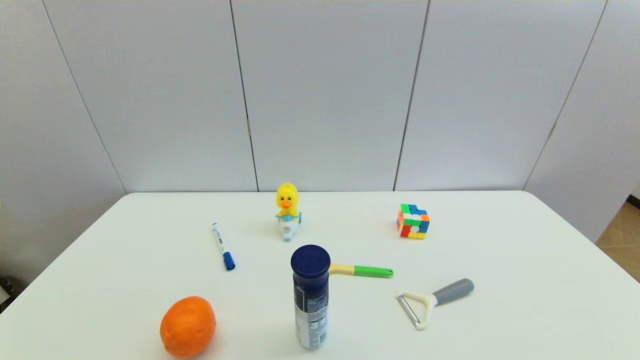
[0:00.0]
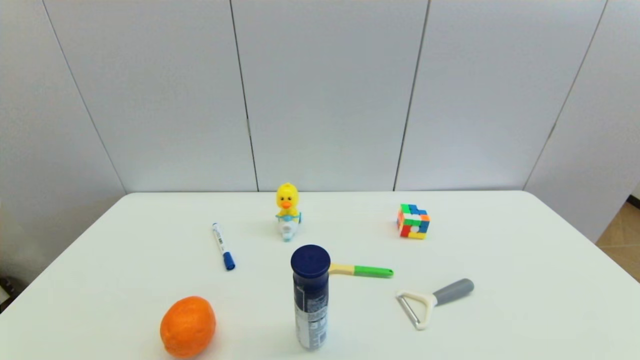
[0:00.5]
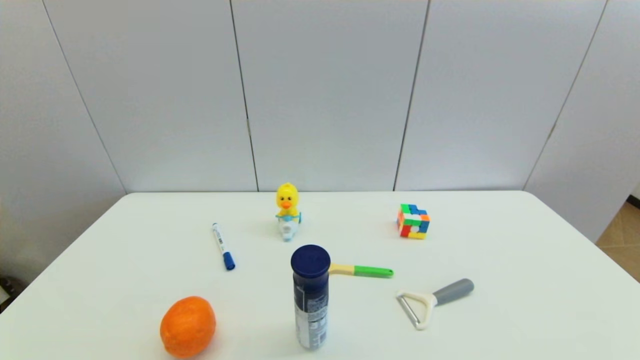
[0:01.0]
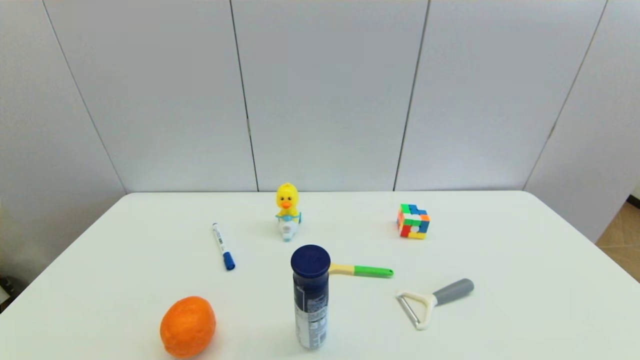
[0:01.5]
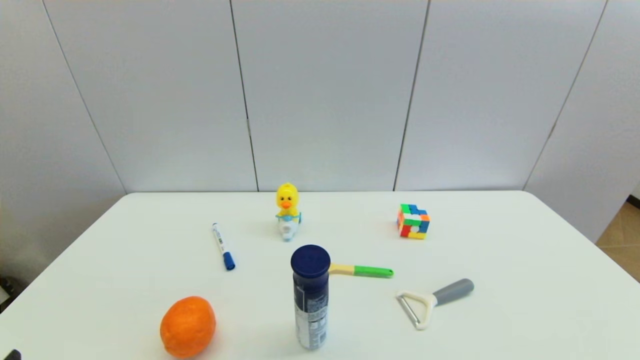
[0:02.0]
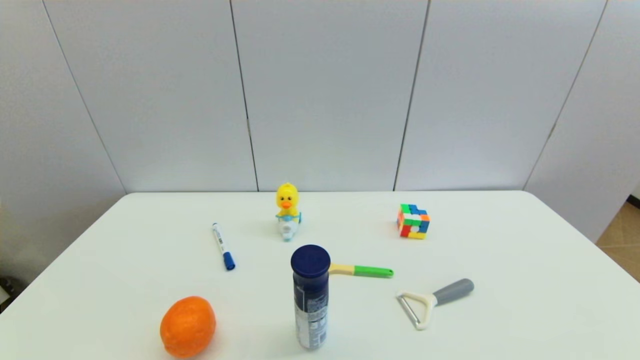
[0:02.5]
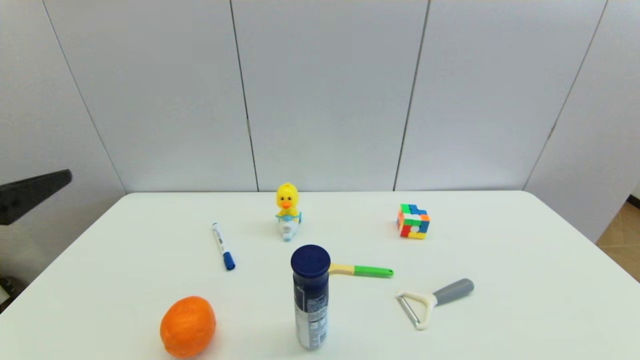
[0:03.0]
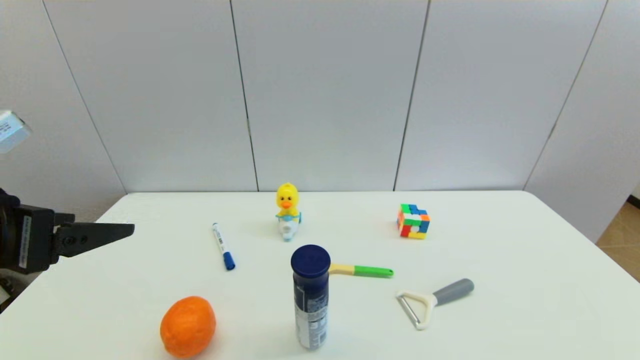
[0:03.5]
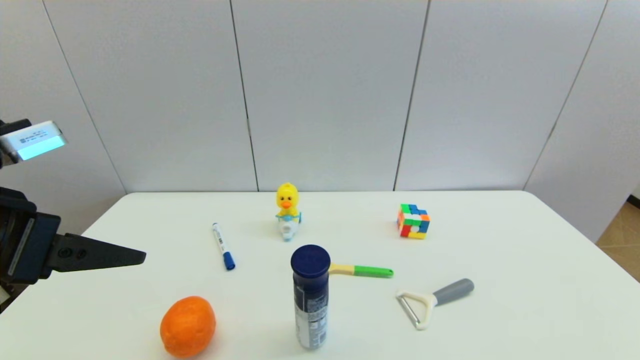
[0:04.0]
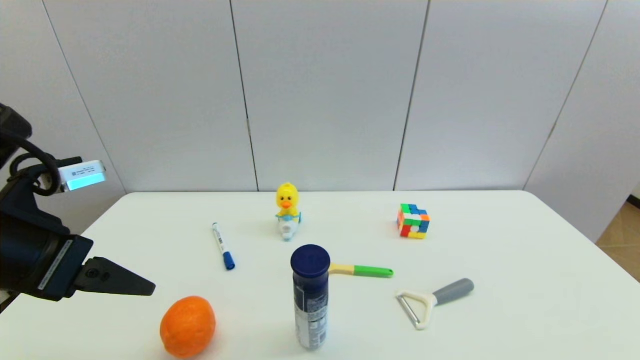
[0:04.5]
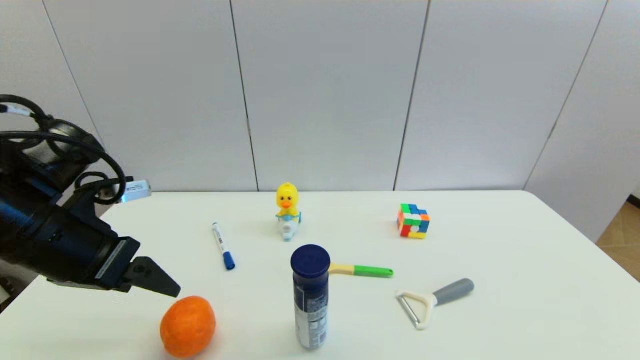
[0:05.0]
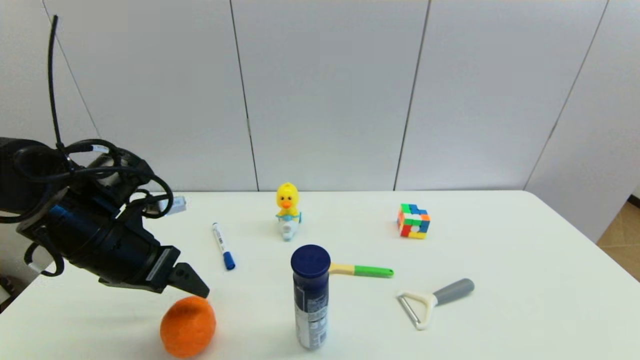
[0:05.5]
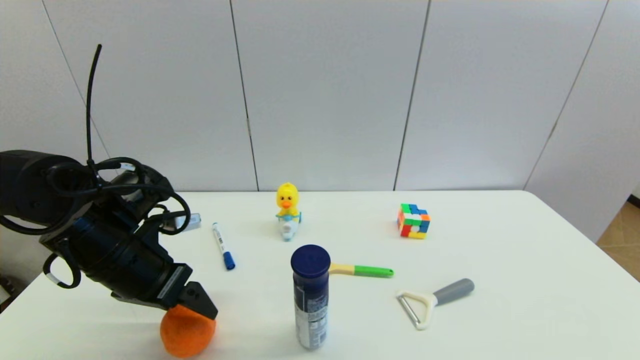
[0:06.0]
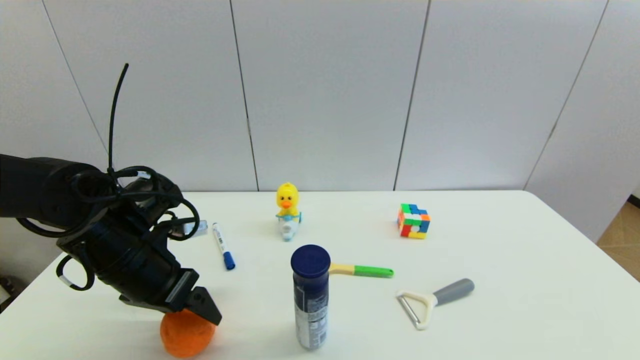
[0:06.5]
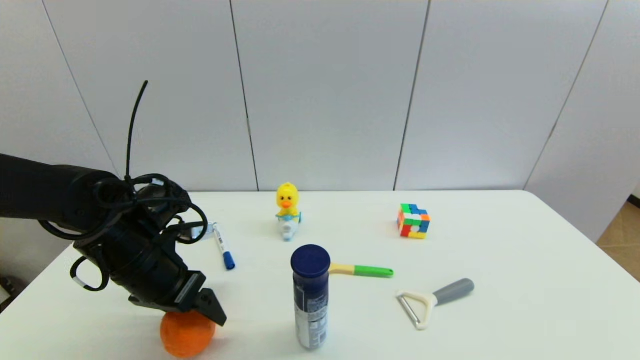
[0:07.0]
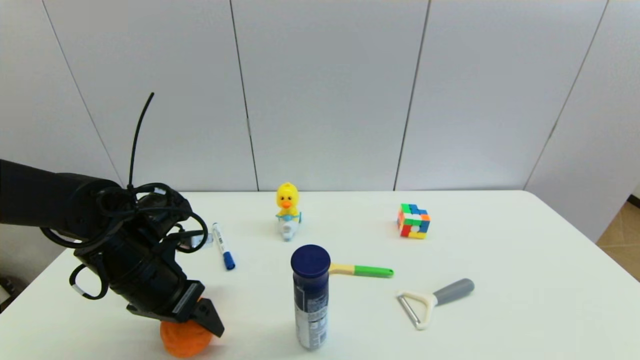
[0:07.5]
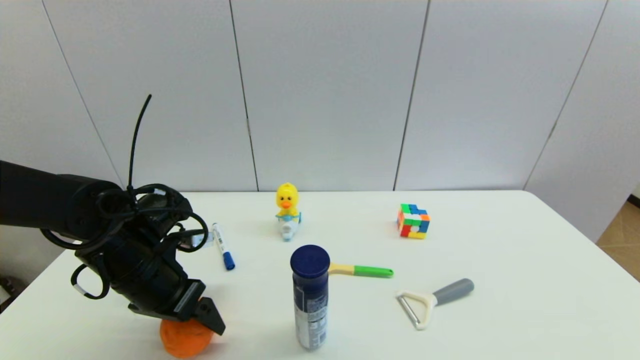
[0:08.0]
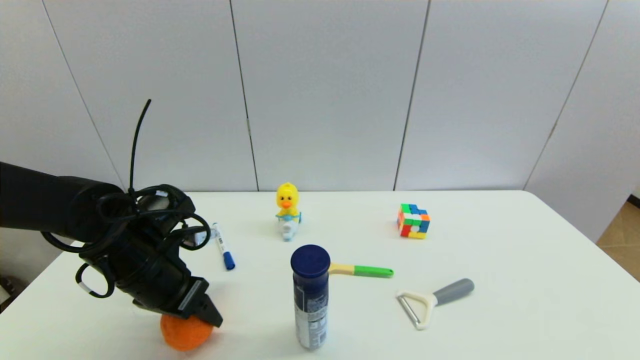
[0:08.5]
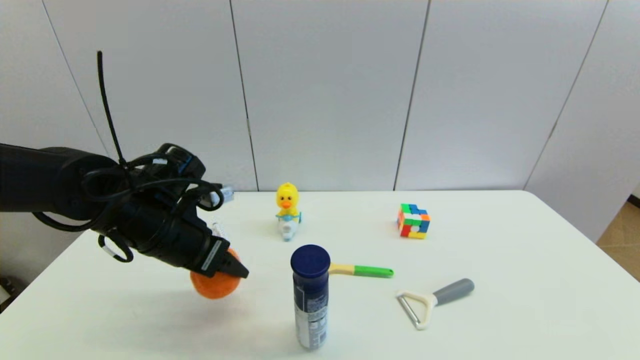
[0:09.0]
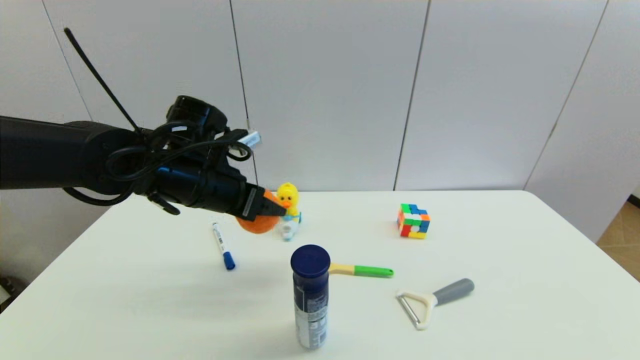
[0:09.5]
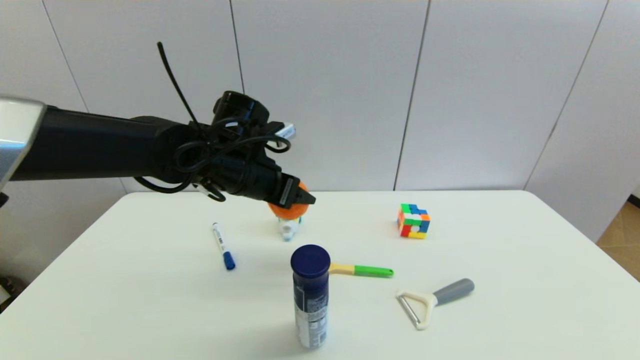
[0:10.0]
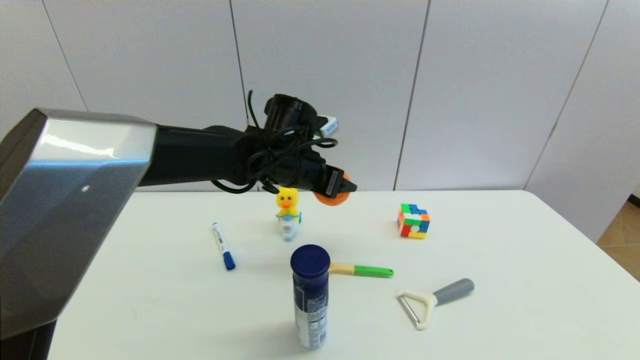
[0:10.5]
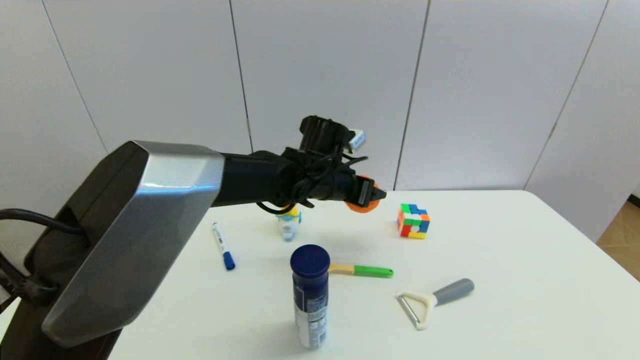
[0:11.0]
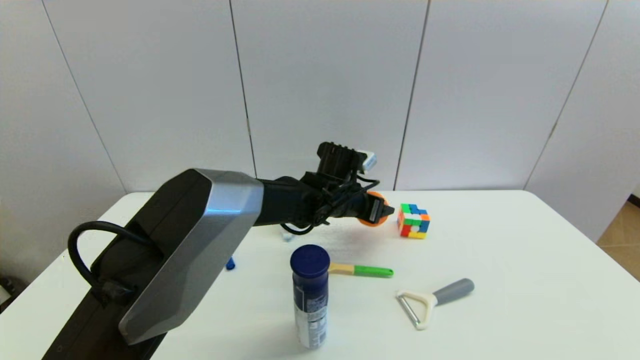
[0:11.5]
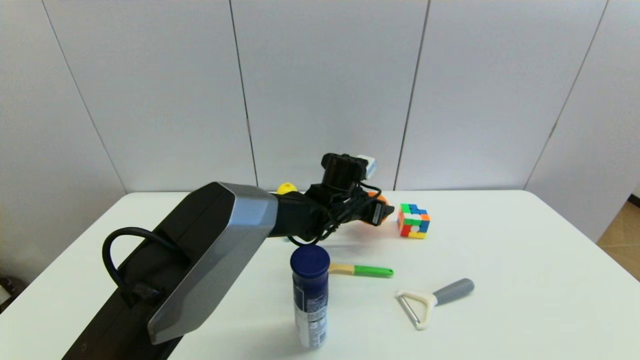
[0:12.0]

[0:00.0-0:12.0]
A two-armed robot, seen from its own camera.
Step, 2.0 to 8.5 s: Grasp the orange with left gripper.
2.0 to 4.0 s: The left gripper shifts approximately 20 cm forward and upward.
4.0 to 6.0 s: The left gripper moves downward and forward, some 15 cm.
6.0 to 8.0 s: The grippers stay close to where they were, moving slightly.
8.0 to 10.0 s: The left gripper is displaced to the right, upward and forward by about 15 cm, and closes.
10.0 to 12.0 s: The left gripper moves to the right, downward and forward, approximately 20 cm.

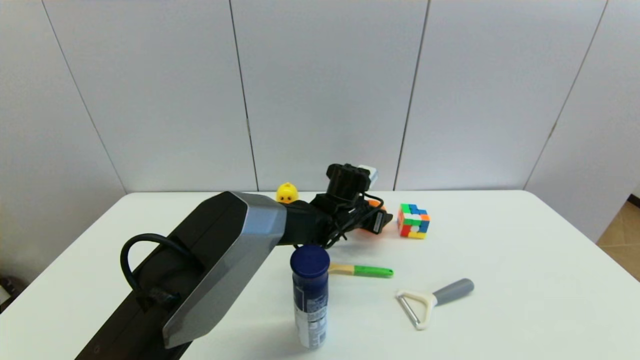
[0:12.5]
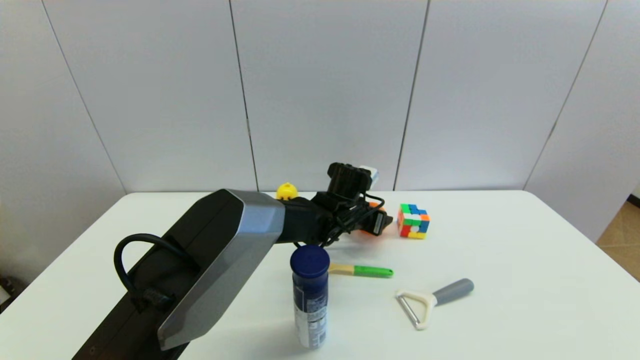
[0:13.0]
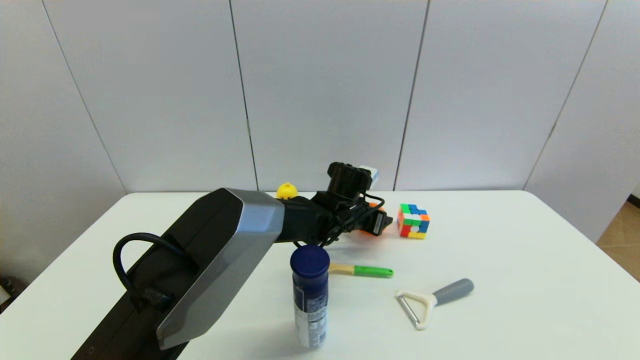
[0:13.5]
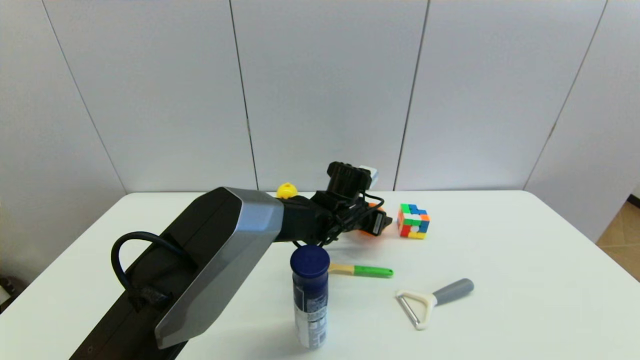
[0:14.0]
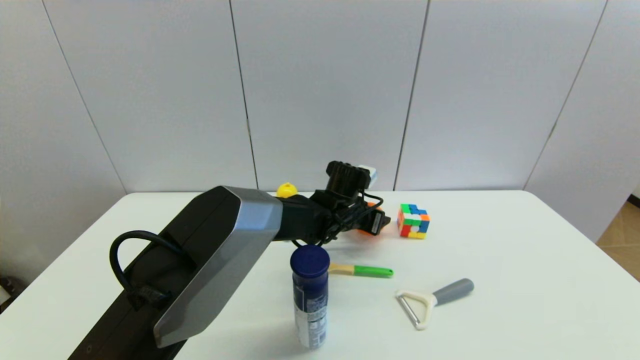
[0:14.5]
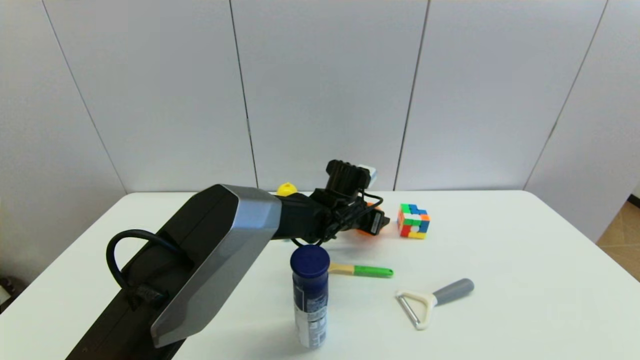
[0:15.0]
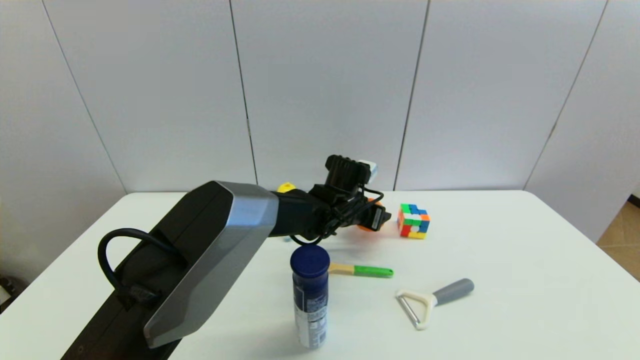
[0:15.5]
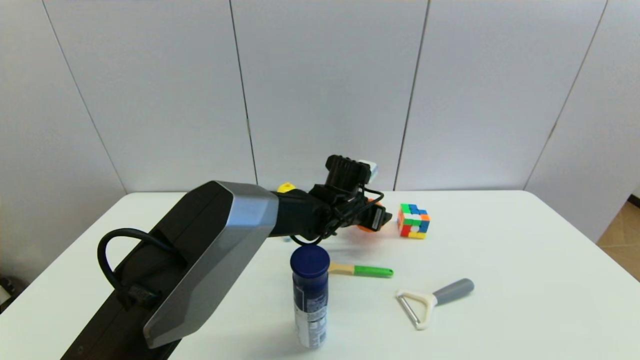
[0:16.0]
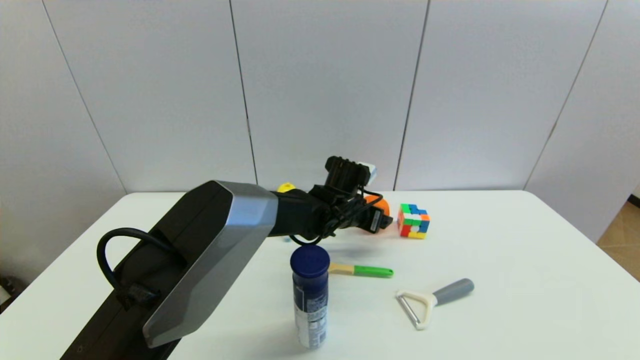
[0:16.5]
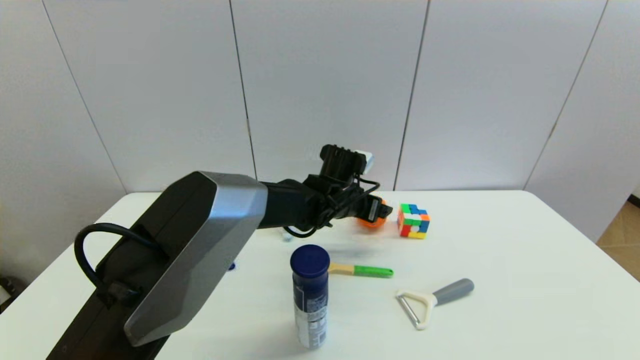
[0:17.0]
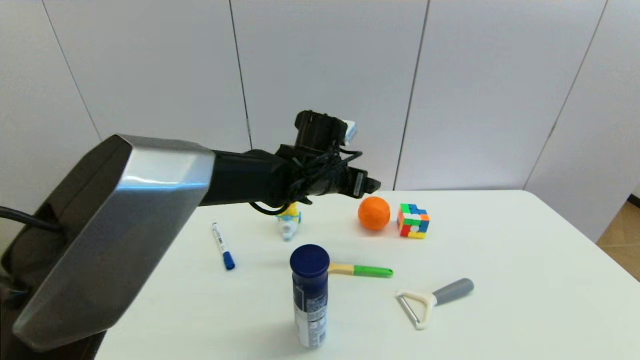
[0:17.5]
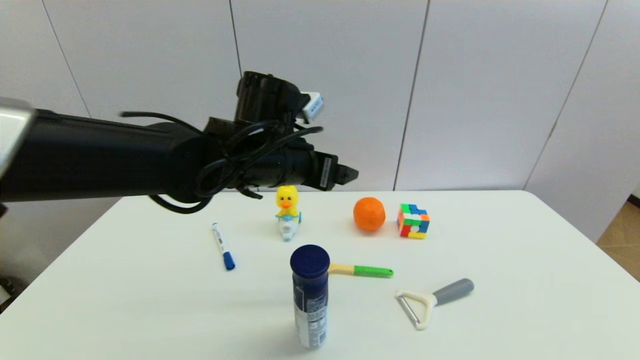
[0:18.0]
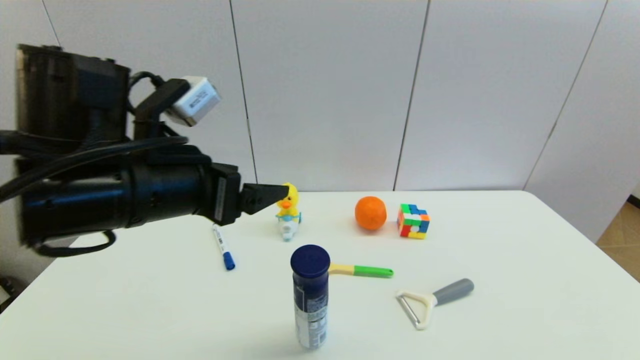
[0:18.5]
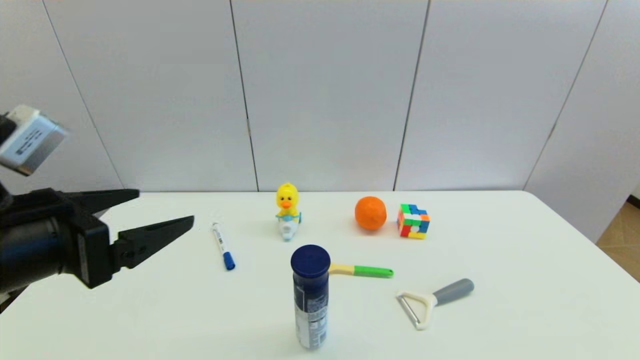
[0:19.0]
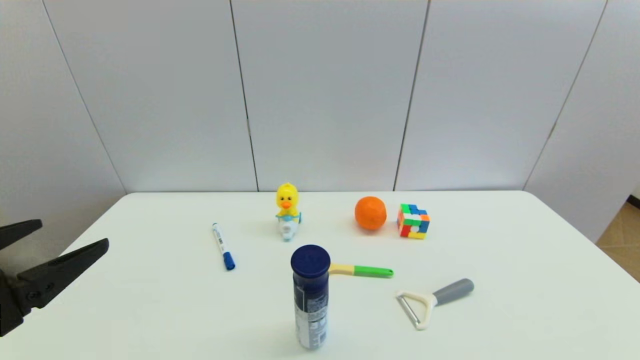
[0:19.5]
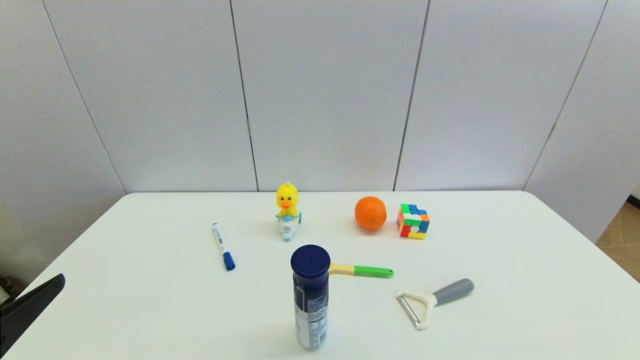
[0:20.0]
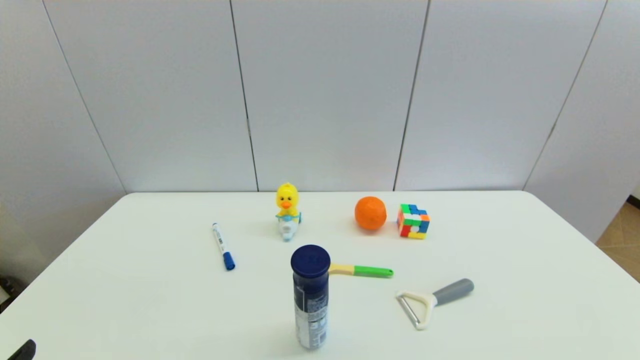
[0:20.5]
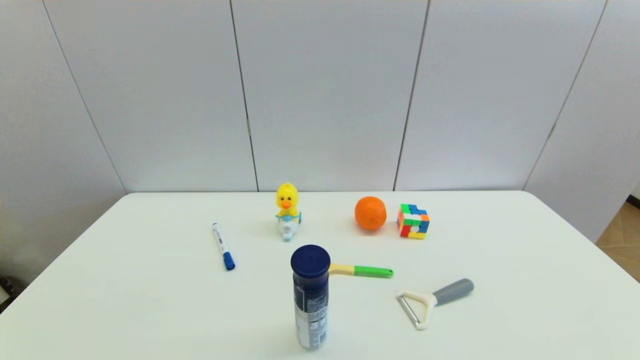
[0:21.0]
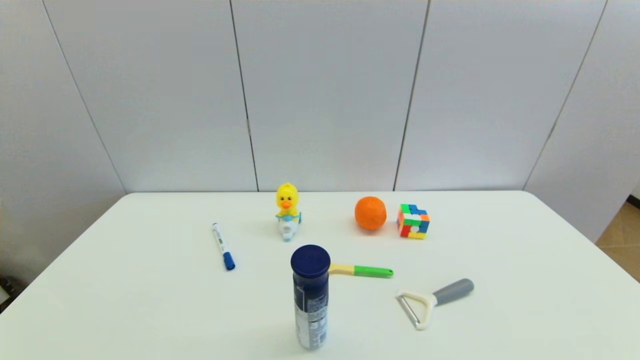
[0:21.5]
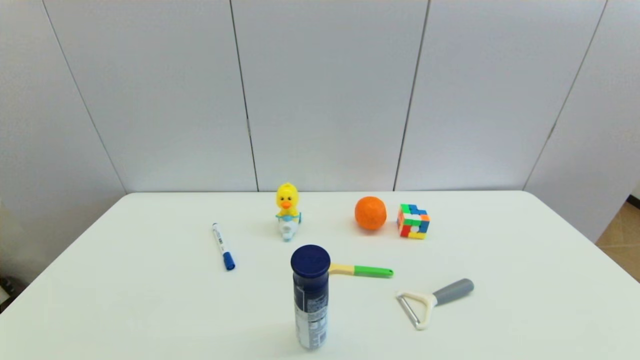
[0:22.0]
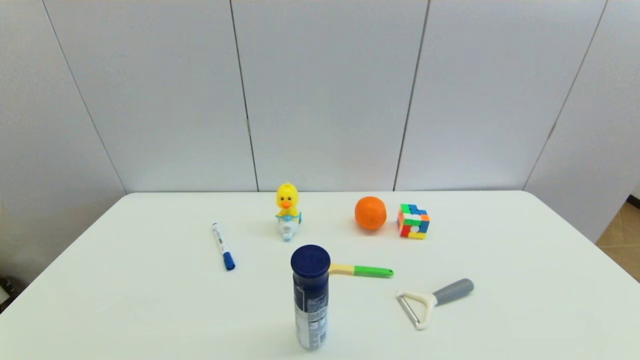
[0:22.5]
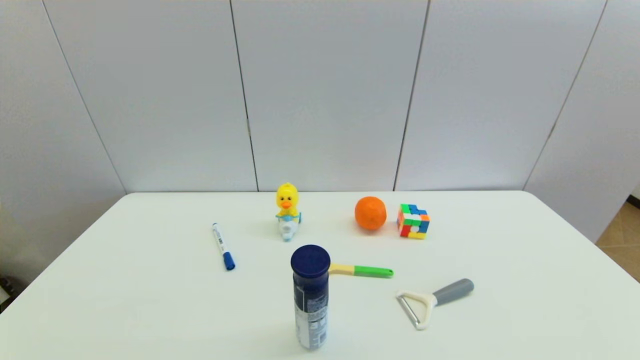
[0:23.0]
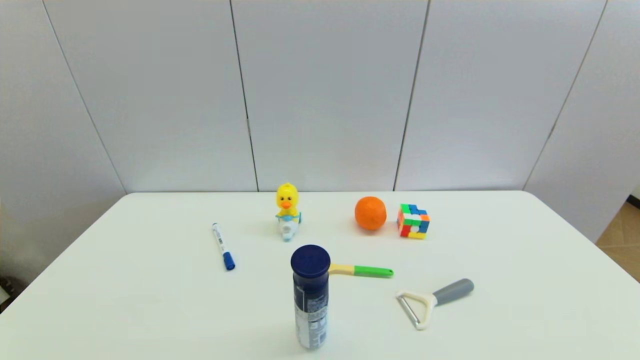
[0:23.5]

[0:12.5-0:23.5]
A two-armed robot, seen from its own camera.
Step, 12.5 to 16.5 s: Place the orange on the table with left gripper.
12.5 to 14.5 s: The two grippers keep their place.
14.5 to 16.0 s: The grippers stay close to where they were, moving slightly.
16.0 to 18.0 s: The left gripper travels upward, to the left and backward by approximately 20 cm, and opens up.
18.0 to 20.0 s: The left gripper is displaced backward and to the left by about 35 cm.
20.0 to 21.5 s: The left gripper moves downward and backward, about 15 cm.
